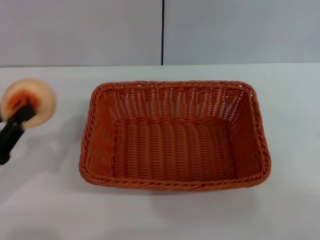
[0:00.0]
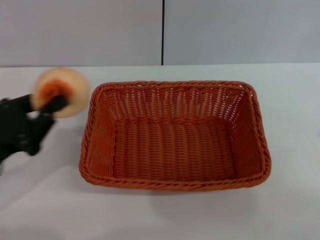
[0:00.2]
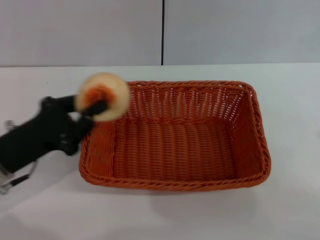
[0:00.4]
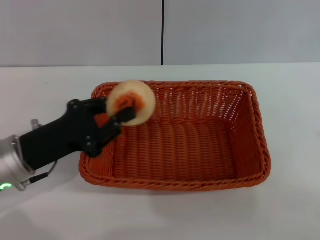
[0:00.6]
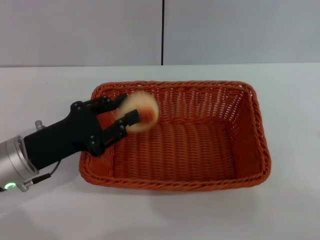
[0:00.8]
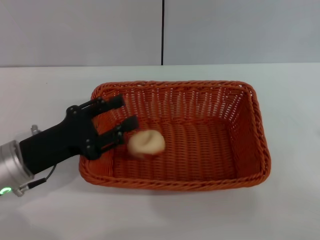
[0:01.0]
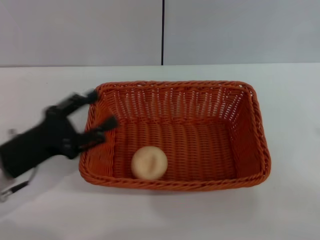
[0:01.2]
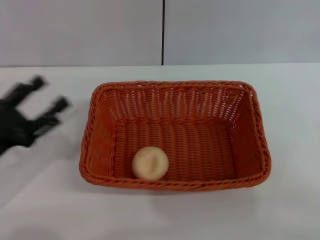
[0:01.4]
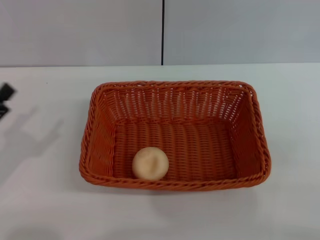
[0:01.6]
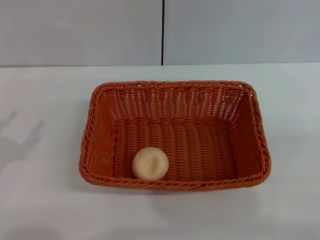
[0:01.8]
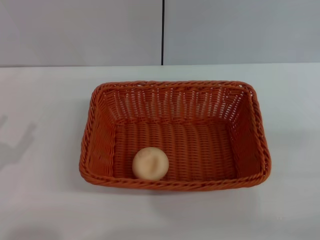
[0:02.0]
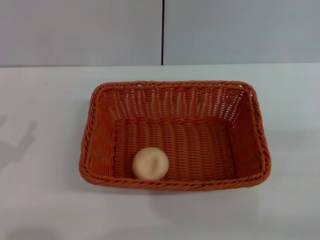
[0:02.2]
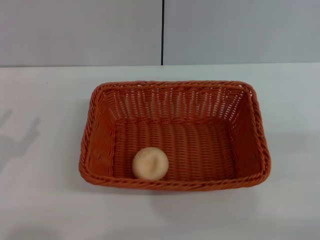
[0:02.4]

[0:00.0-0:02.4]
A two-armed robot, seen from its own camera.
Step, 0:00.0 to 0:01.0: Place the egg yolk pastry into the basket with the left gripper.
0:00.0 to 0:01.2: The left gripper is displaced to the right by about 5 cm, and opens.
0:01.2 to 0:02.4: The left gripper travels to the left and backward by approximately 10 cm.
